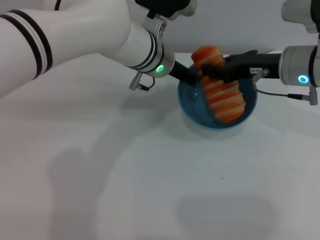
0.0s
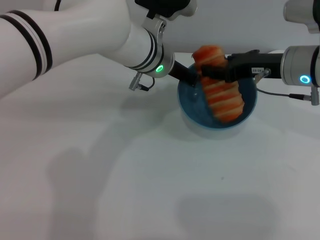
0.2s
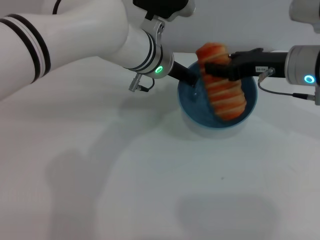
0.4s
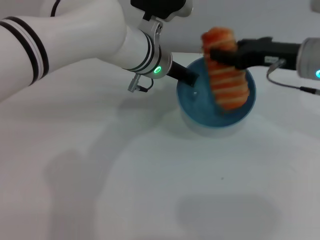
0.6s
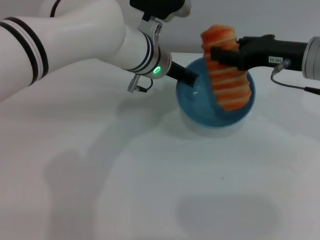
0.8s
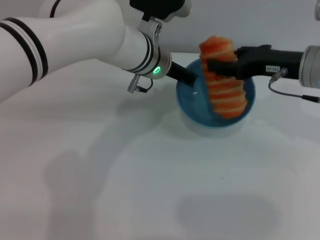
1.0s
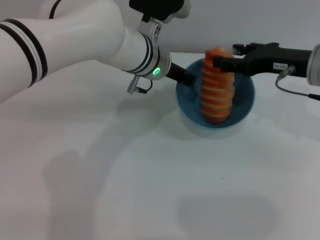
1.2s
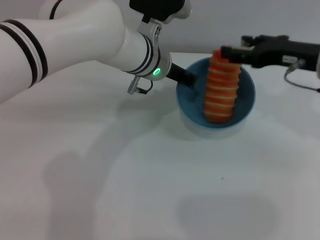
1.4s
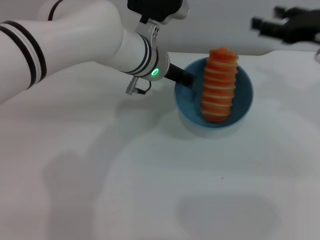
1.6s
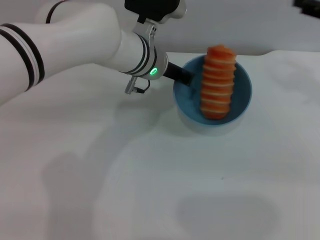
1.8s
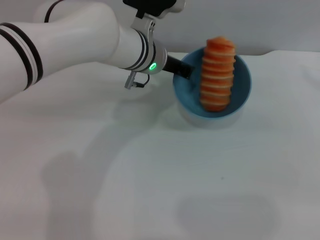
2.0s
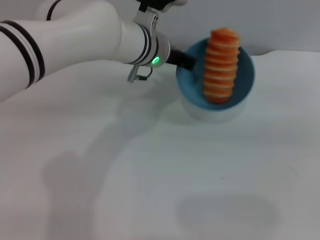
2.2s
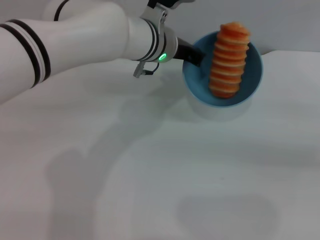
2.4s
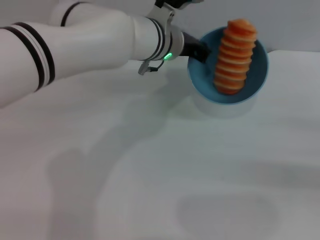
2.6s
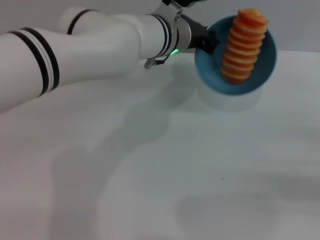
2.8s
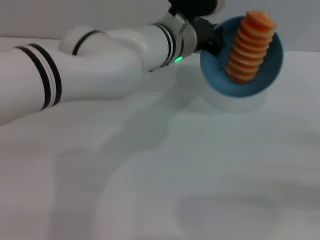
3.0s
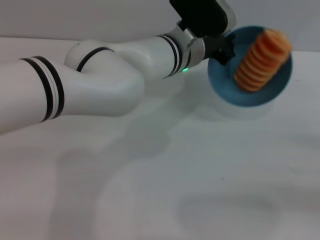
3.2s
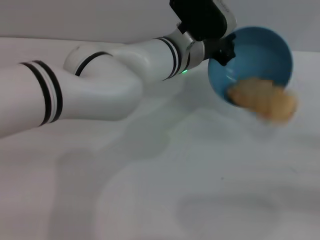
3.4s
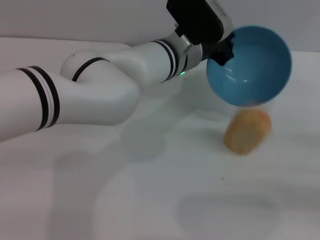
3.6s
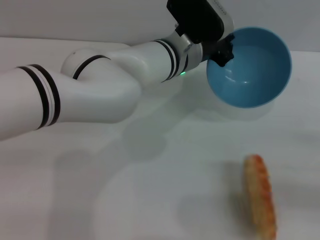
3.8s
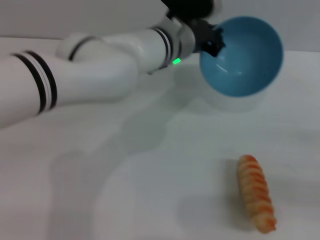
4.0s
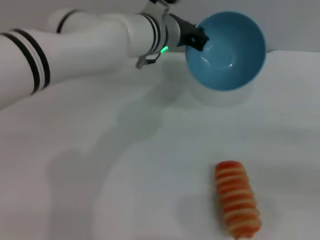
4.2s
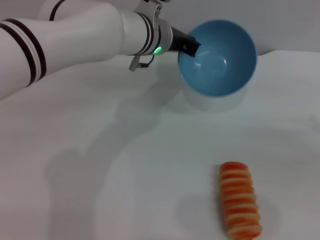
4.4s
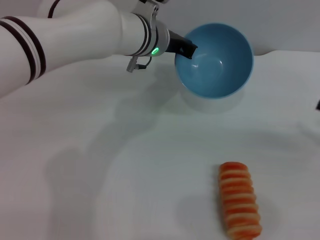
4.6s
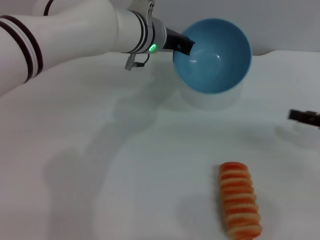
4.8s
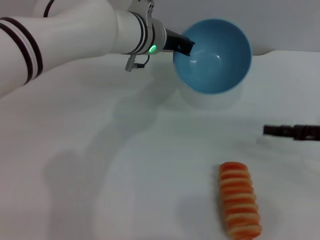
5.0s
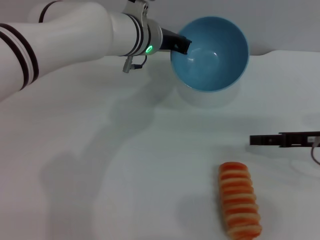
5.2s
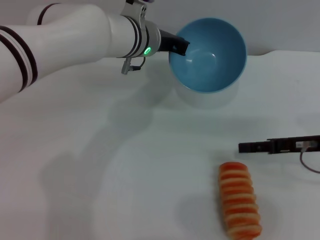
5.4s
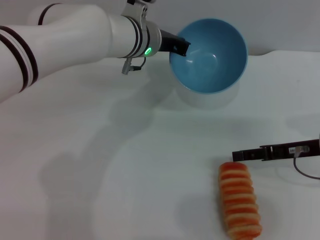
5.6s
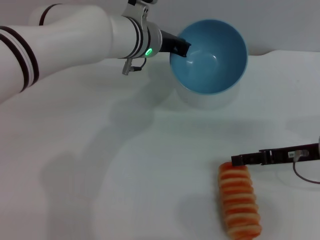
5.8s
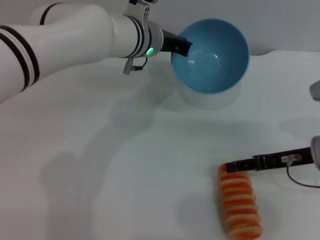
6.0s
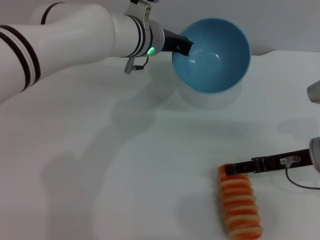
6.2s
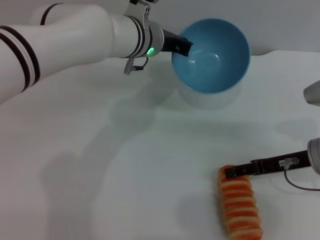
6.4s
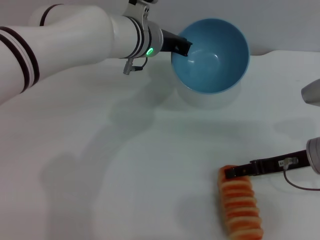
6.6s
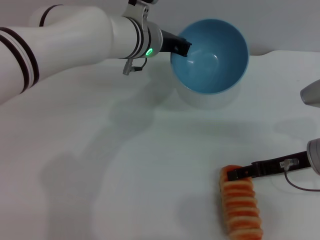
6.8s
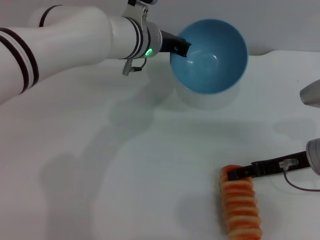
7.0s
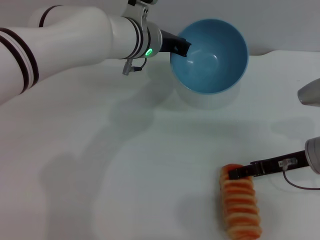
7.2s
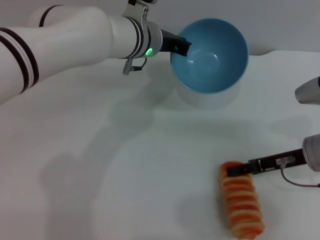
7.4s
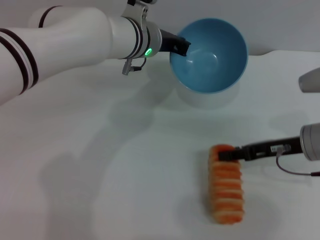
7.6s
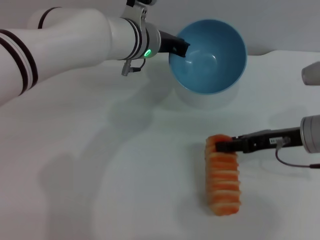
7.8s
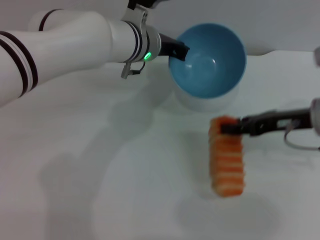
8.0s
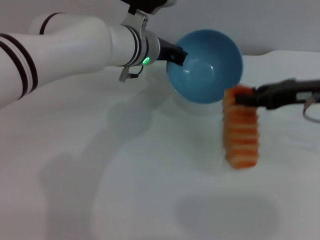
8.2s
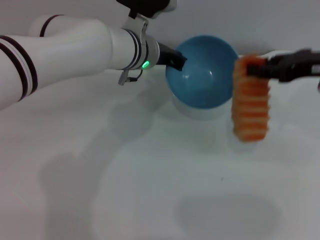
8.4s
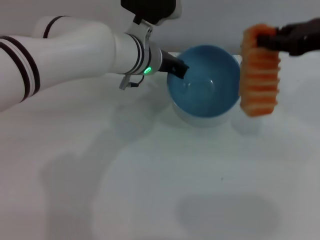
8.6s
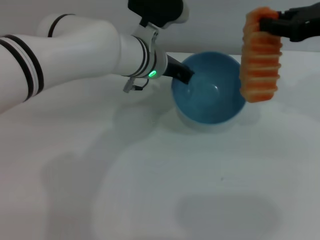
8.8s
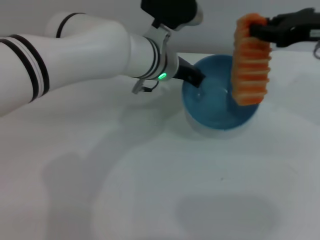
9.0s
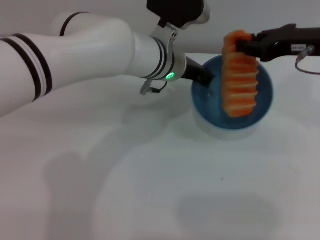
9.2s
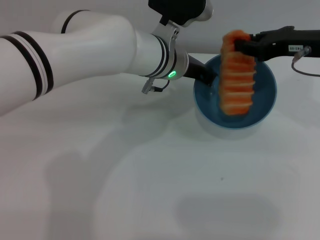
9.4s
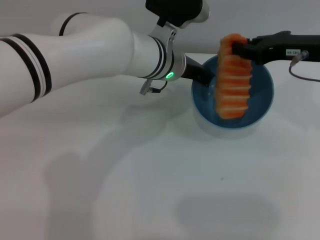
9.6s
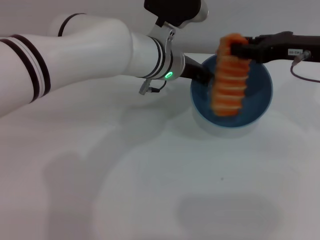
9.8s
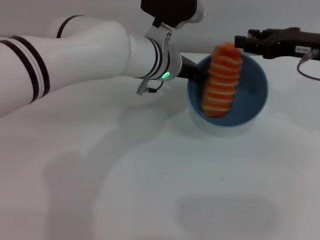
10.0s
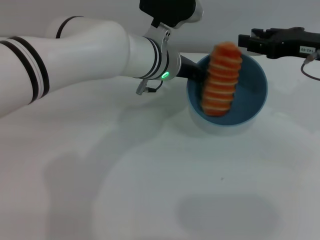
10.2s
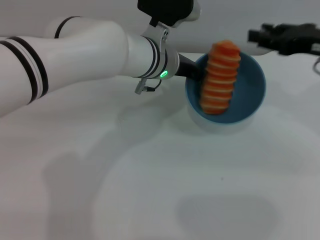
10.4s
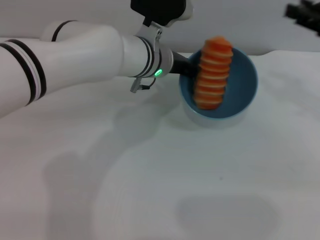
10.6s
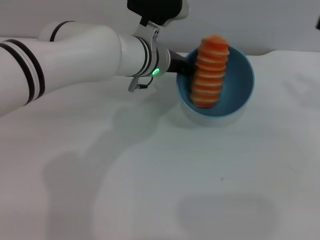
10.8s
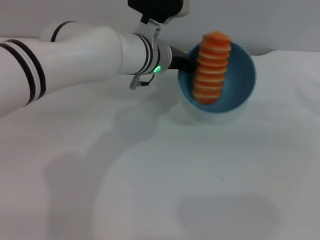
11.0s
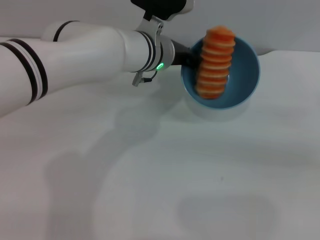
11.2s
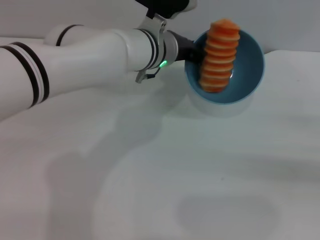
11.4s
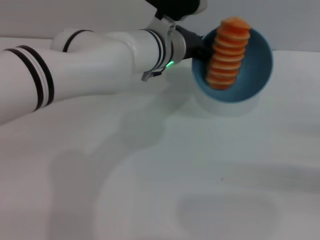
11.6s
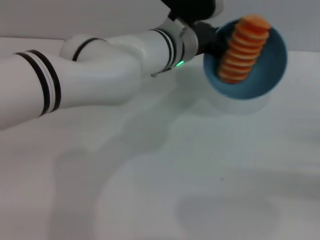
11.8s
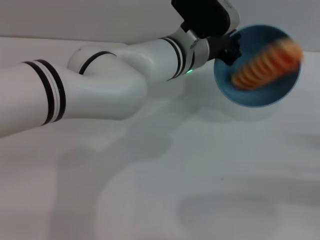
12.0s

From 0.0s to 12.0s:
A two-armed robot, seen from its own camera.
Task of the whole recording: put the bread into the blue bowl and pour it out repeatedly.
Step, from 1.6s to 4.2s: Pour the bread out of the bowl.
Step, from 4.4s to 7.8s: Pick up the bread with the right gripper.
Step, from 8.2s to 10.4s: Place the bread into the bowl.
From 0.0s to 1.6s: The right gripper shifts approximately 5 cm to the right, and opens.
From 1.6s to 3.0s: The right gripper goes approximately 25 cm backward, to the right and downward.
From 4.4s to 6.0s: The right gripper goes about 15 cm to the left and forward.
From 6.0s to 7.6s: The grippers make only small movements.
From 7.6s to 9.0s: The right gripper heads upward, covering about 15 cm.
From 9.0s to 10.4s: The grippers make only small movements.
From 10.4s to 12.0s: The right gripper shifts roughly 25 cm downward, backward and to the right, and opens.

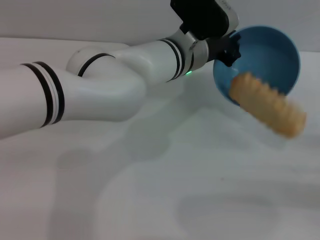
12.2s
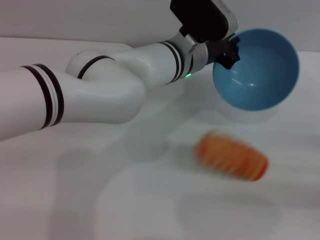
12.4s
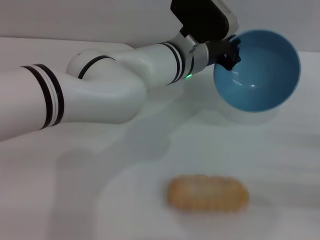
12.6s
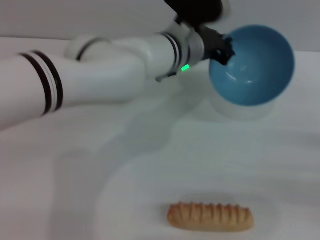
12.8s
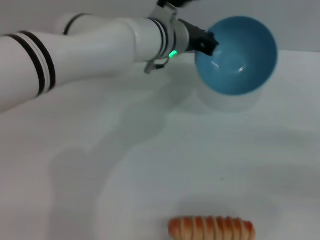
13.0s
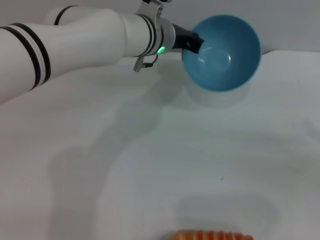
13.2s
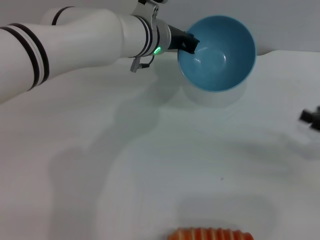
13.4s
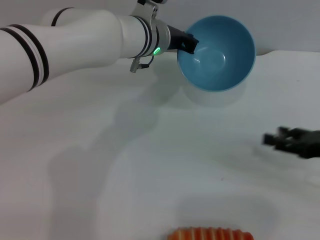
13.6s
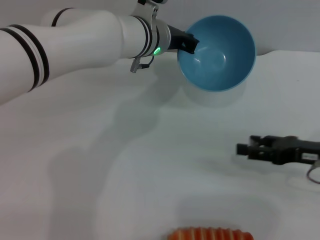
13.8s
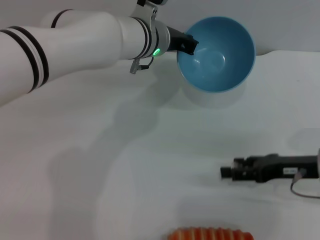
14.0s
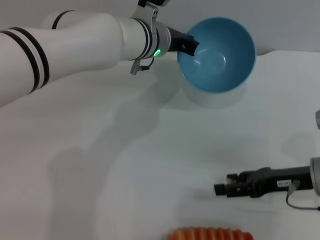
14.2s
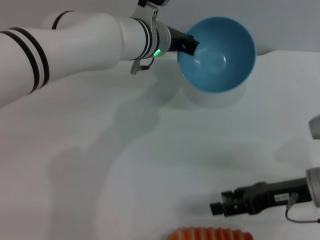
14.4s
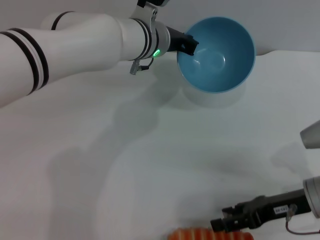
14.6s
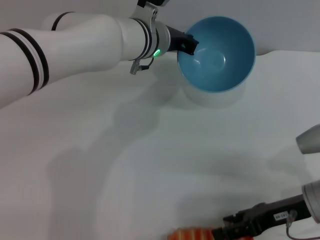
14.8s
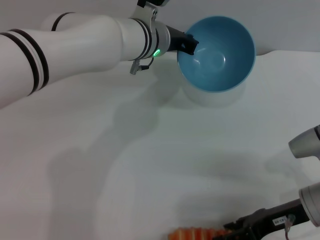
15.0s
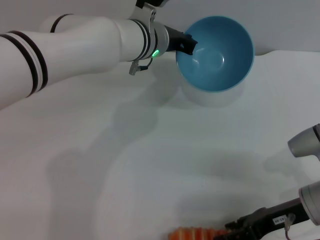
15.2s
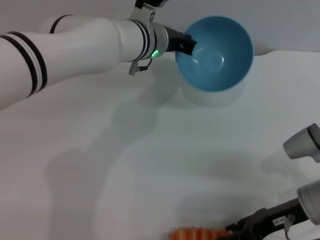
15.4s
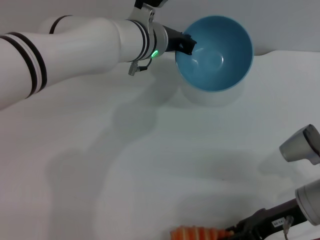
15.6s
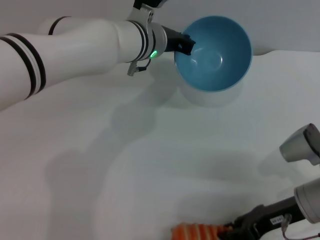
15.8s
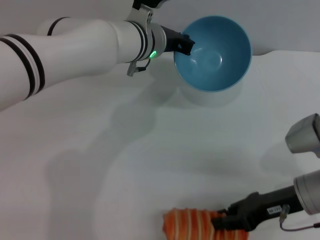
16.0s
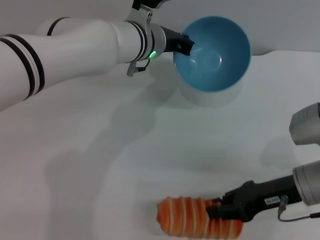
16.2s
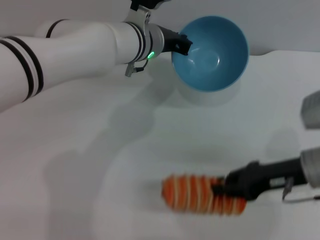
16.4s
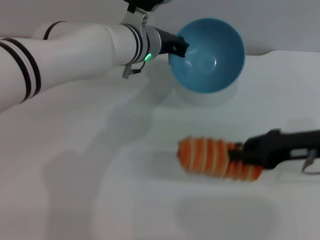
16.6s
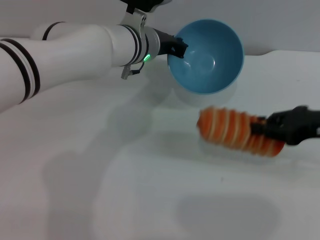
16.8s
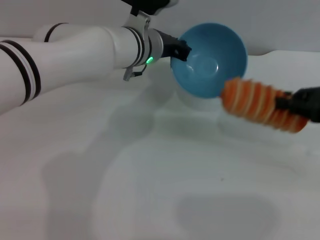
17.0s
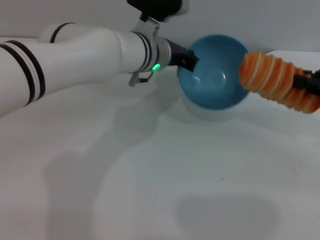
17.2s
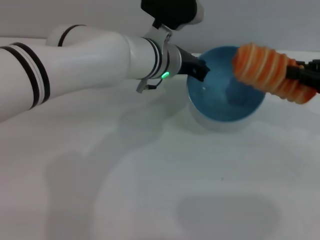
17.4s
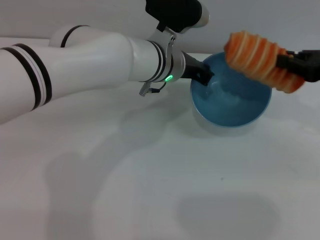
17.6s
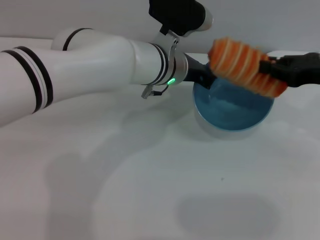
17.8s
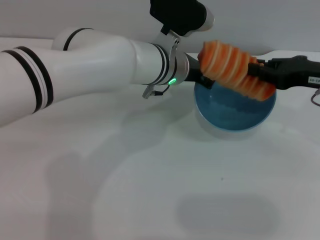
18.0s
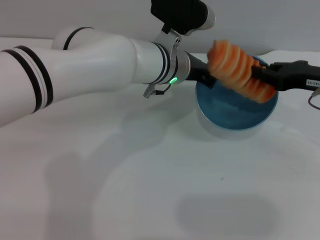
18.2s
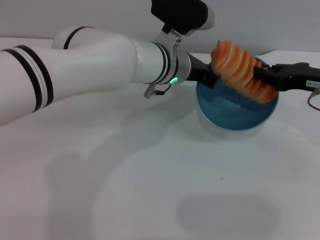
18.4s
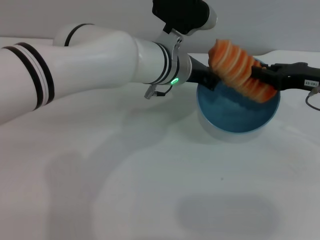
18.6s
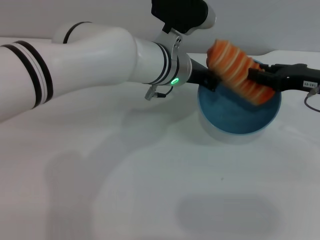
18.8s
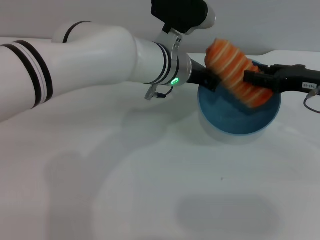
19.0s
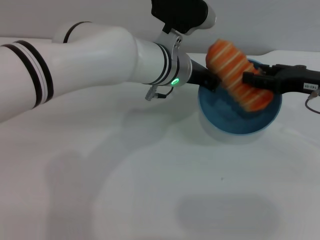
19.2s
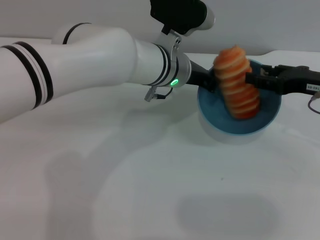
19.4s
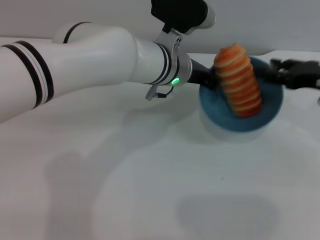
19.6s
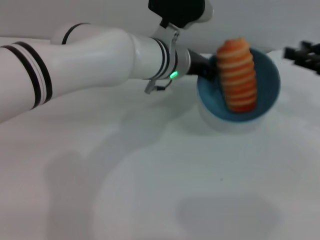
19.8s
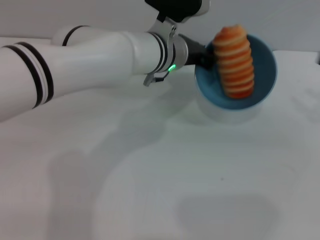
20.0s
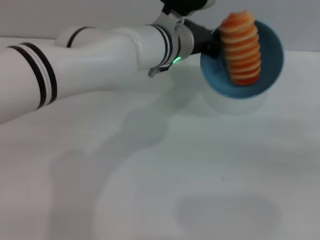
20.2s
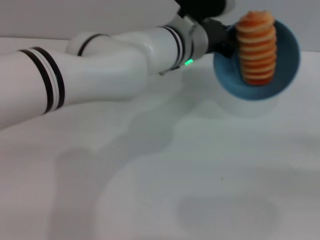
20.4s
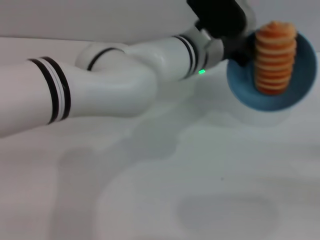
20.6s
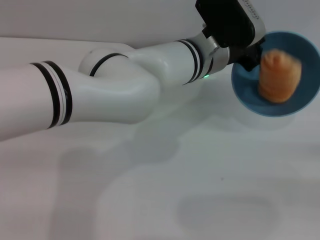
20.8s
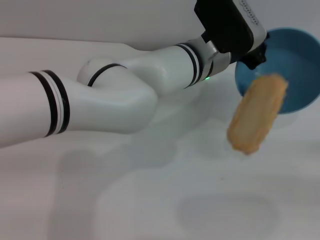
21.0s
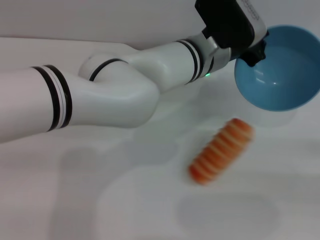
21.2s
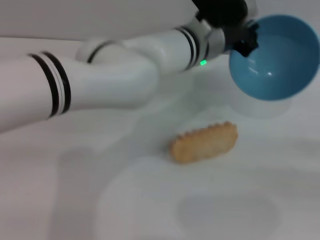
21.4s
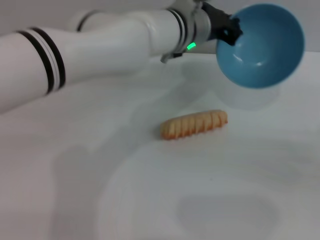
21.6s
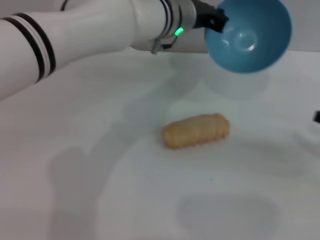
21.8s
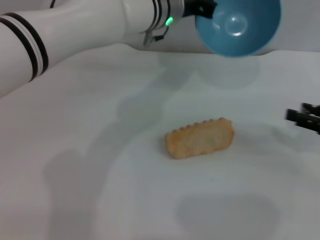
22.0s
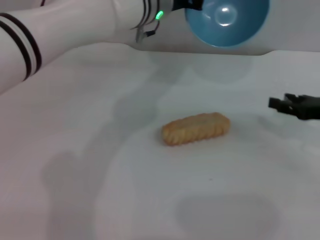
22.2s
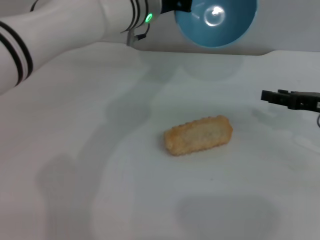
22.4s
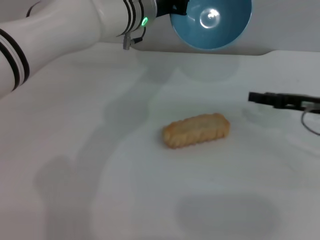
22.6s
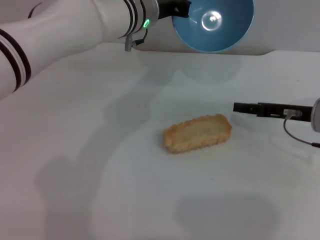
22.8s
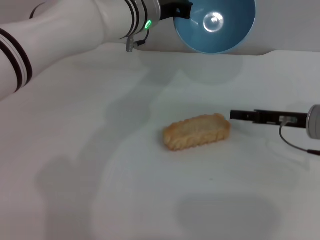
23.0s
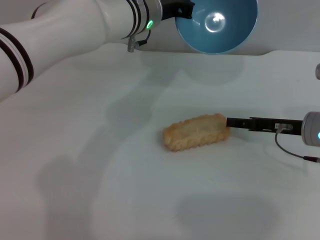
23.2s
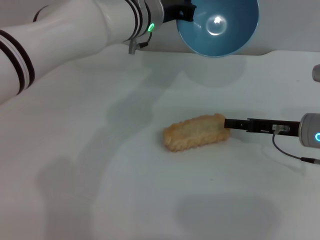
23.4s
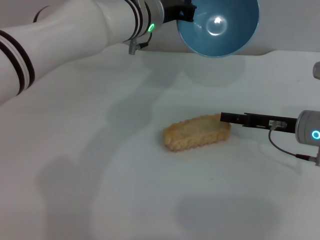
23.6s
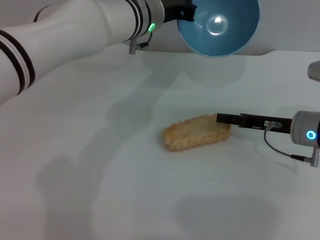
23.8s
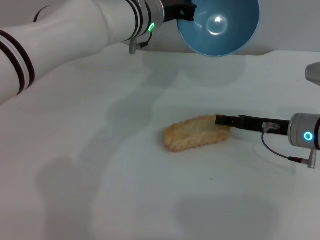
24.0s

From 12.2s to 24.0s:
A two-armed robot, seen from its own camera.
Task of the whole recording: put the bread into the blue bowl and pour it out repeatedly.
Step, from 13.0s to 16.6s: Pick up the bread with the right gripper.
Step, from 16.8s to 19.6s: Place the bread into the bowl.
Step, from 19.8s to 21.8s: Pour the bread out of the bowl.
From 12.2s to 13.6s: The left gripper moves some 5 cm; the right gripper shifts roughly 10 cm to the left and forward.
From 13.6s to 15.2s: The right gripper moves to the left, some 10 cm.
From 15.2s to 16.6s: The right gripper shifts roughly 5 cm upward, and closes its fingers.
From 16.6s to 18.2s: The right gripper moves forward, roughly 5 cm. The left gripper ends up roughly 5 cm from where it was.
From 18.2s to 19.6s: The right gripper opens.
From 19.6s to 21.0s: The right gripper goes roughly 20 cm backward and to the right.
From 21.0s to 22.6s: The left gripper goes about 10 cm to the left and forward. Meanwhile the right gripper is displaced to the left and forward by approximately 20 cm.
From 22.6s to 24.0s: The right gripper travels to the left by approximately 5 cm.
